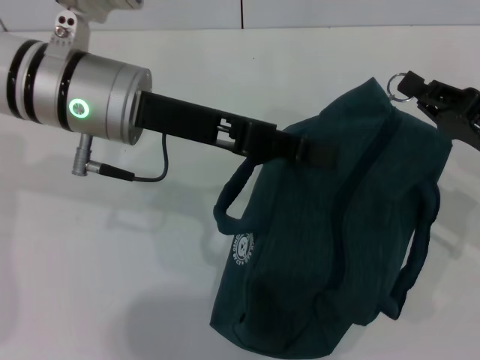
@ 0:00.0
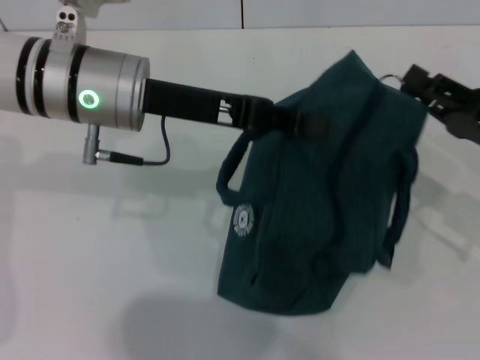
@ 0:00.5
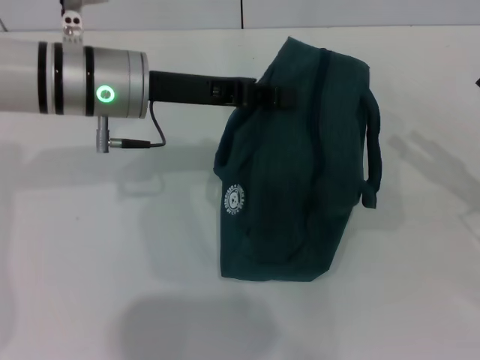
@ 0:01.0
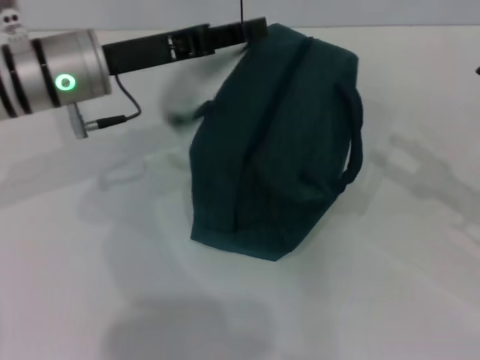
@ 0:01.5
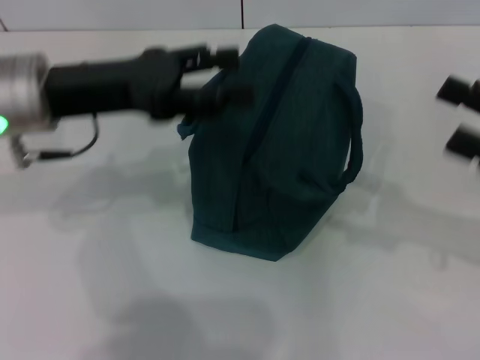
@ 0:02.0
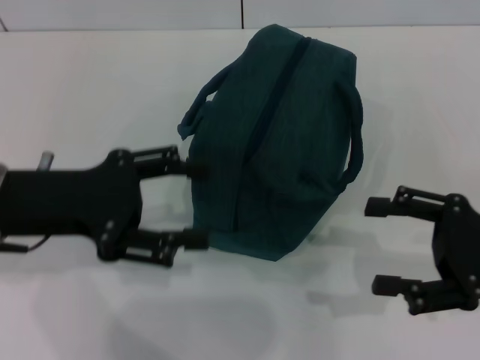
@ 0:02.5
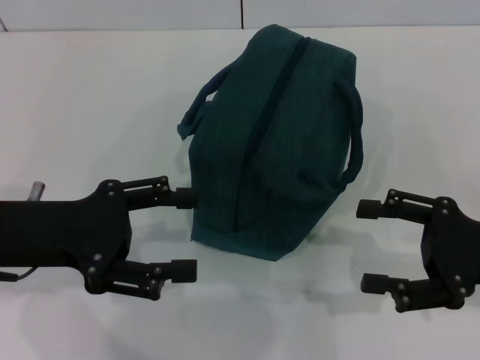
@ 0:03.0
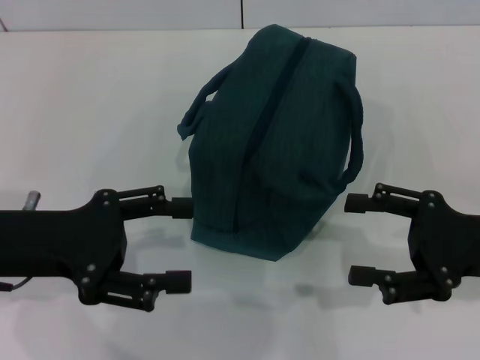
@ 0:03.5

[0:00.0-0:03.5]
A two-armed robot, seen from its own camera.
Step, 0:01.0 to 0:01.5: Hold the lunch bag with your left hand.
0:00.0 to 0:02.0: The right gripper goes about 5 cm upward, and opens its fingers. The left gripper is displaced to the left by approximately 5 cm, and opens up.
0:02.0 to 0:03.5: The right gripper changes place by about 5 cm; the left gripper heads backward, covering roughly 10 cm.

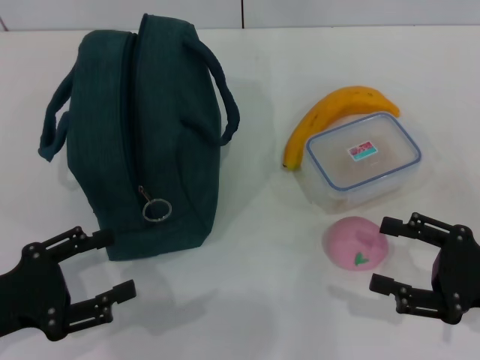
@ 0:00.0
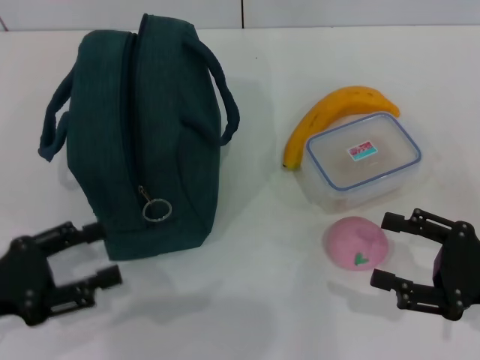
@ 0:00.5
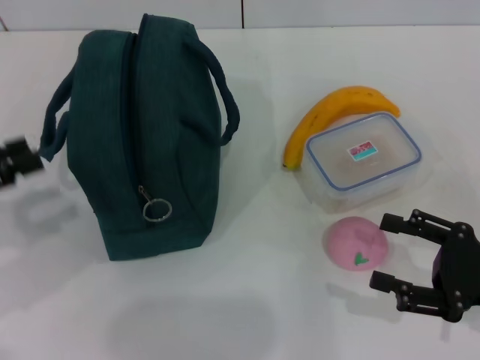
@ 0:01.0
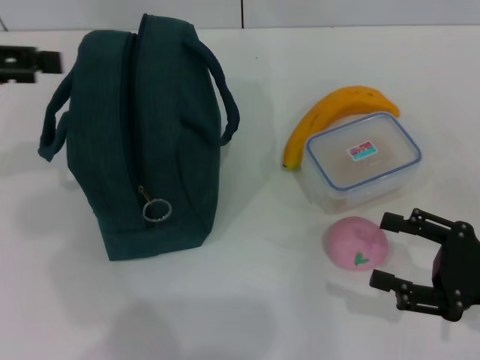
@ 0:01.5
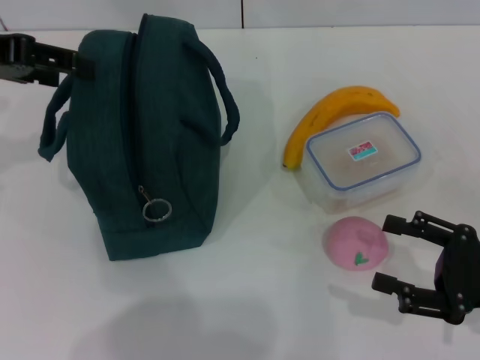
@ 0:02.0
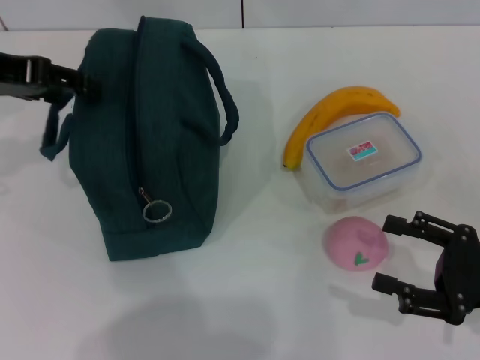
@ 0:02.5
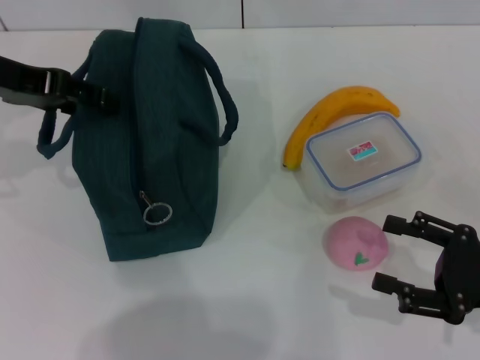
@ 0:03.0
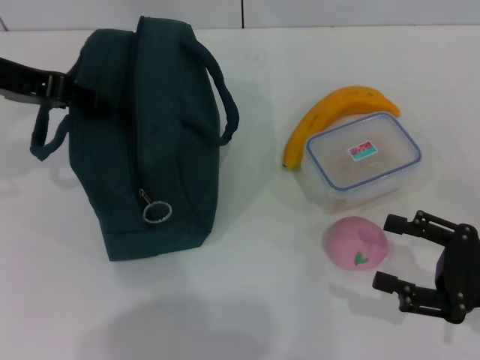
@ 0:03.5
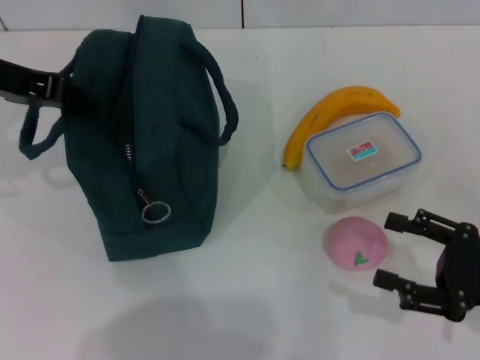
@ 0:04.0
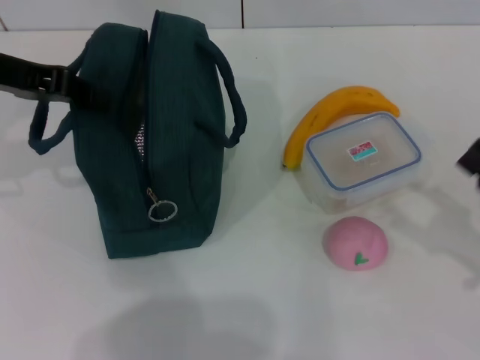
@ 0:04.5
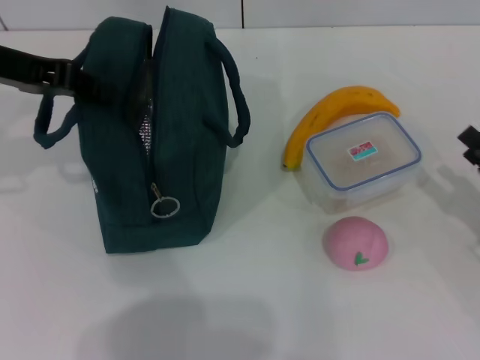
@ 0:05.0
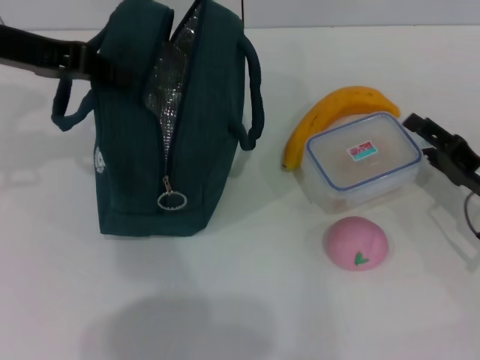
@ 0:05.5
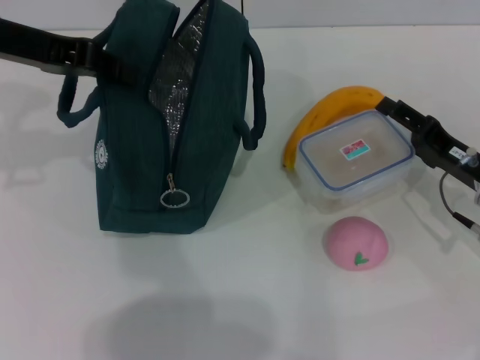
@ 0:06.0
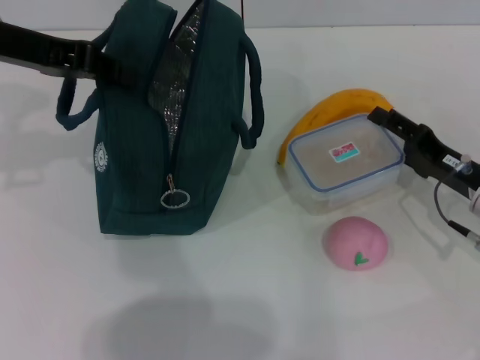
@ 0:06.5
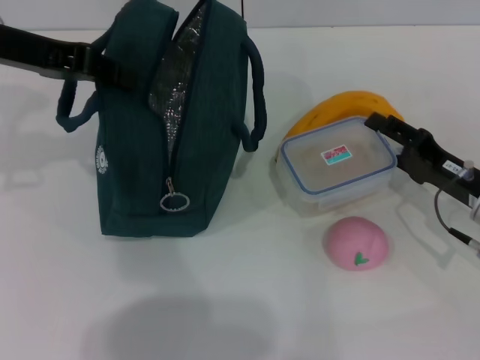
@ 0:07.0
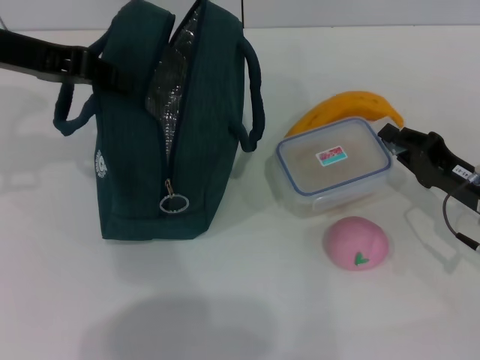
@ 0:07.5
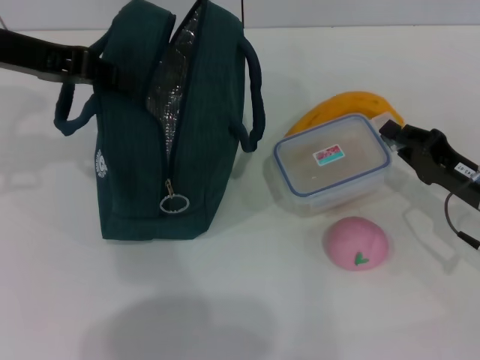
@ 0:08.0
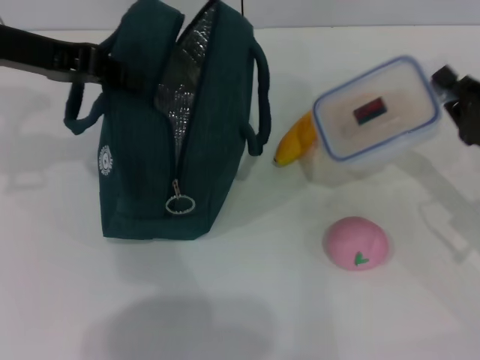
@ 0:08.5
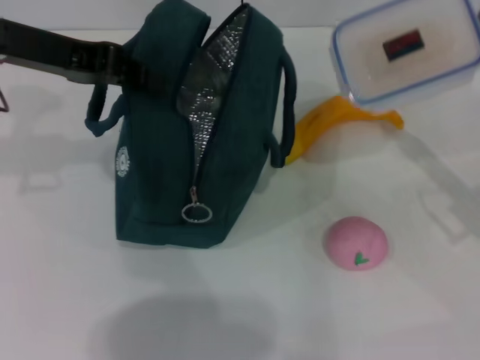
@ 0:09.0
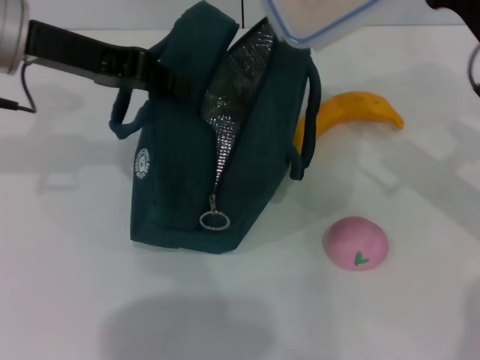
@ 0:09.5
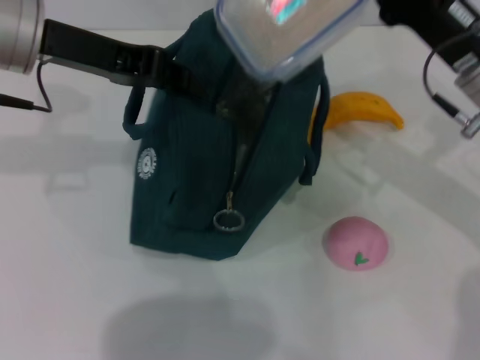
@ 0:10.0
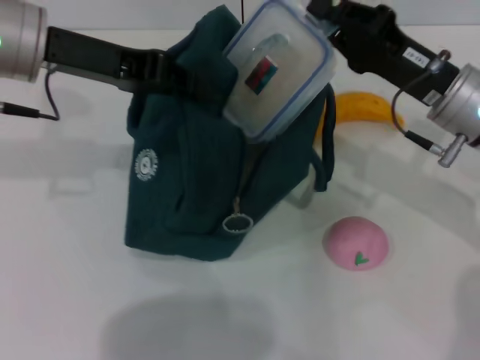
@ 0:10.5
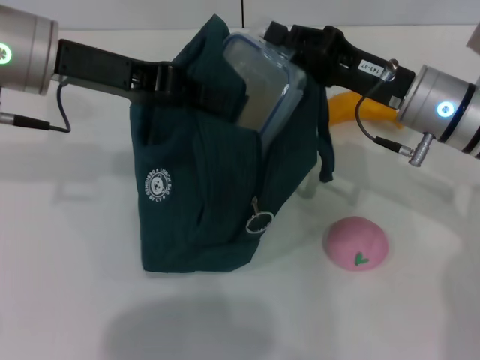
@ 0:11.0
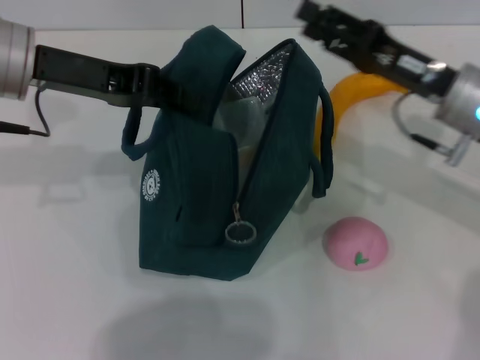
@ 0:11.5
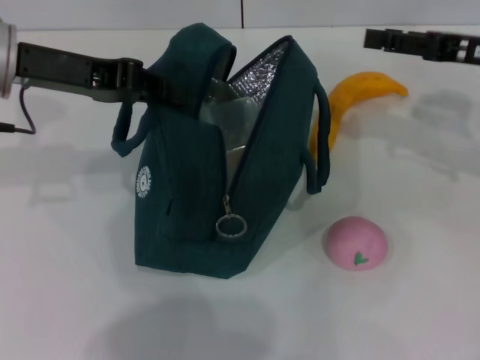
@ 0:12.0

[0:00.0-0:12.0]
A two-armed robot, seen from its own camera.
Step, 0:00.0 to 0:04.0: Hold the lunch bag with your left hand.
Step, 0:04.5 to 0:07.5: Pick up the lunch box with your right hand.
Step, 0:08.0 to 0:11.0: Place the lunch box into the lunch bag with your right hand.
0:00.0 to 0:02.0: The left gripper shifts approximately 25 cm upward and forward.
0:02.0 to 0:04.0: The left gripper closes up.
0:04.0 to 0:06.0: The right gripper goes about 10 cm forward.
0:06.0 to 0:08.0: The right gripper closes its fingers.
0:08.0 to 0:10.0: The right gripper is displaced upward, forward and to the left by roughly 15 cm, while the left gripper travels to the right by some 5 cm.
0:10.0 to 0:12.0: The right gripper is displaced to the right by approximately 5 cm, and opens its fingers.

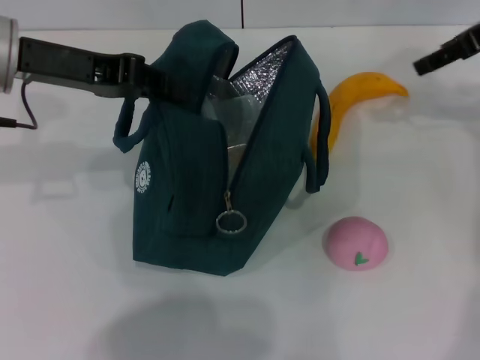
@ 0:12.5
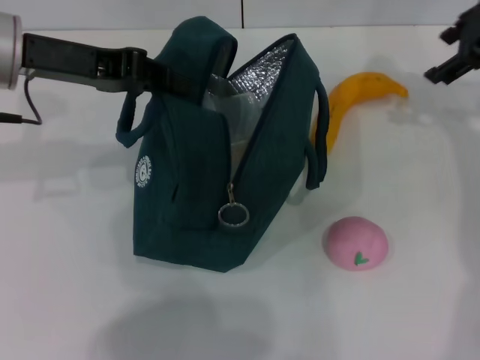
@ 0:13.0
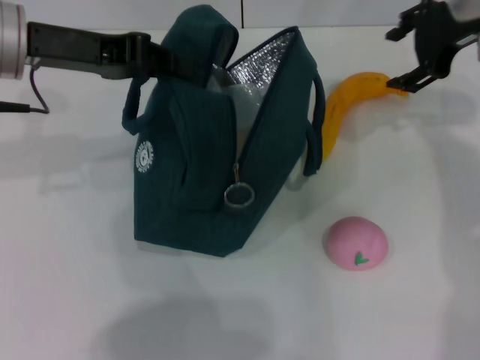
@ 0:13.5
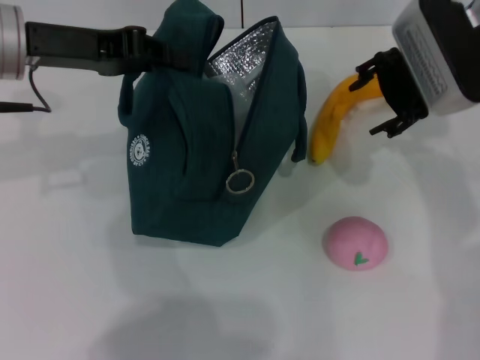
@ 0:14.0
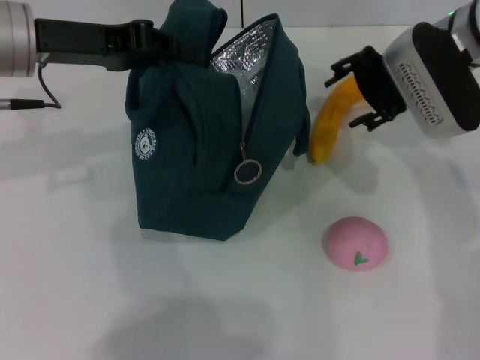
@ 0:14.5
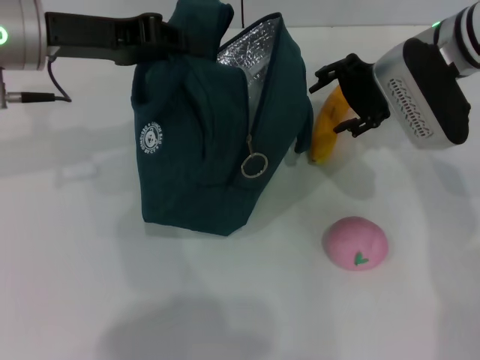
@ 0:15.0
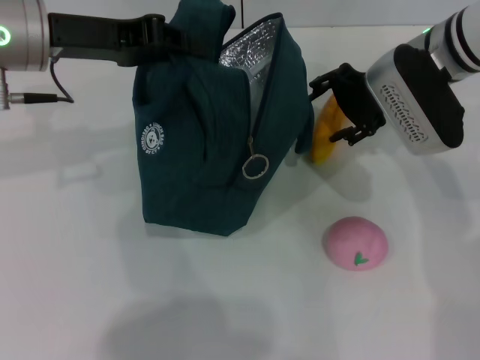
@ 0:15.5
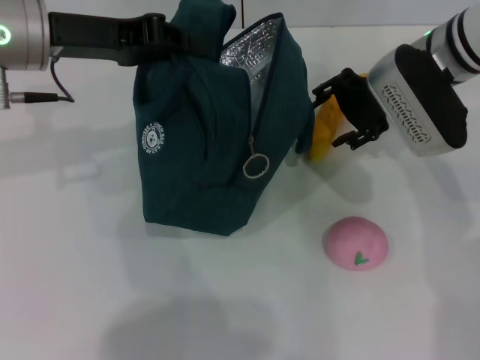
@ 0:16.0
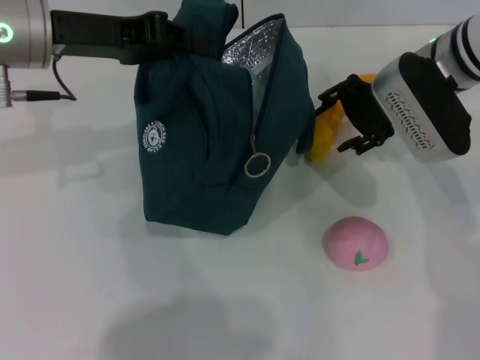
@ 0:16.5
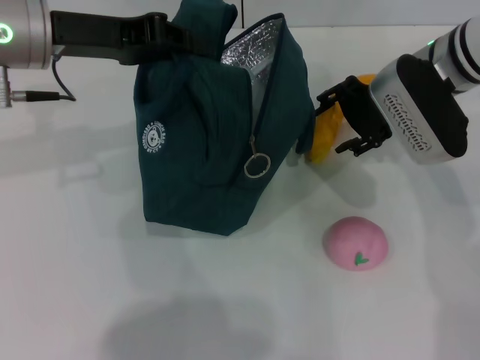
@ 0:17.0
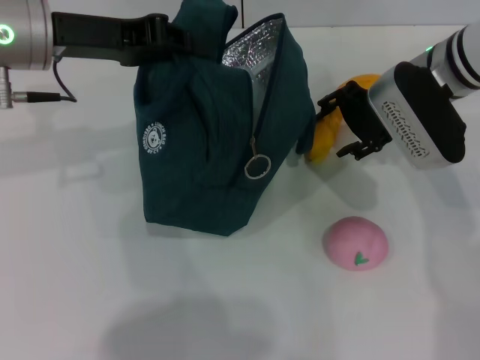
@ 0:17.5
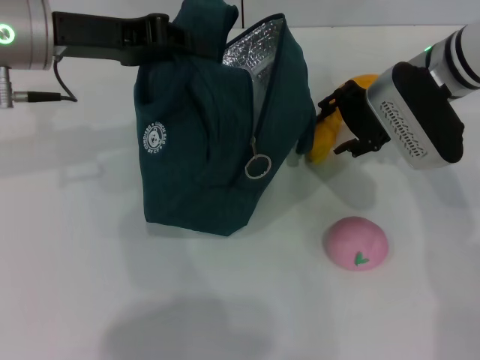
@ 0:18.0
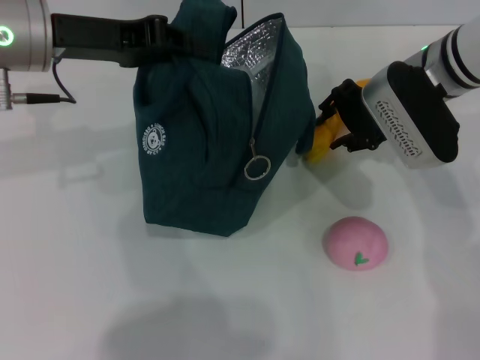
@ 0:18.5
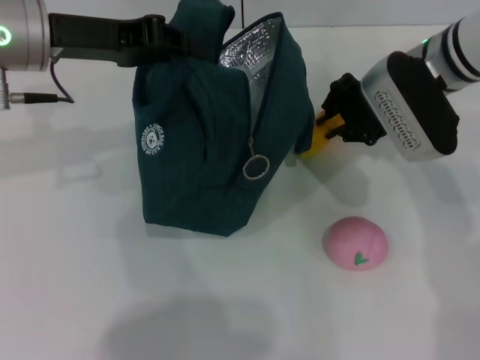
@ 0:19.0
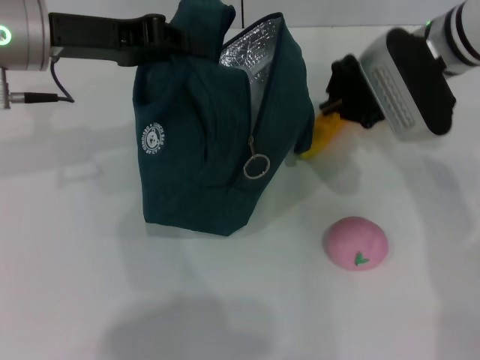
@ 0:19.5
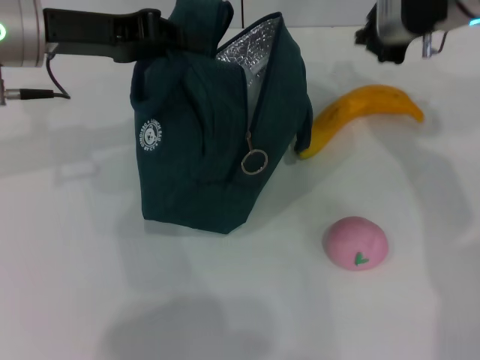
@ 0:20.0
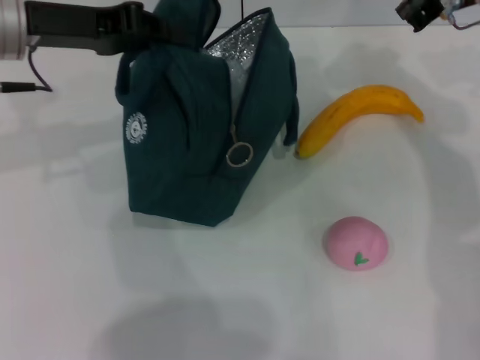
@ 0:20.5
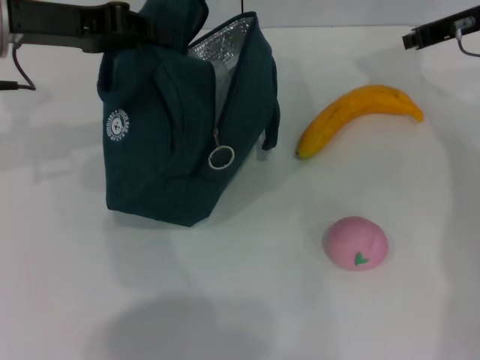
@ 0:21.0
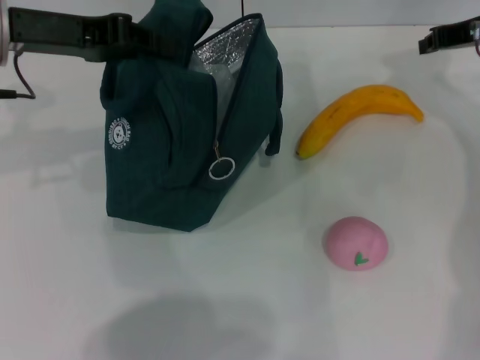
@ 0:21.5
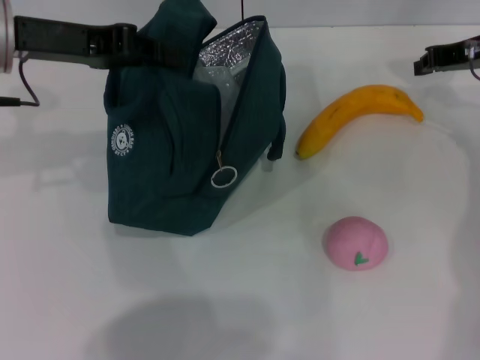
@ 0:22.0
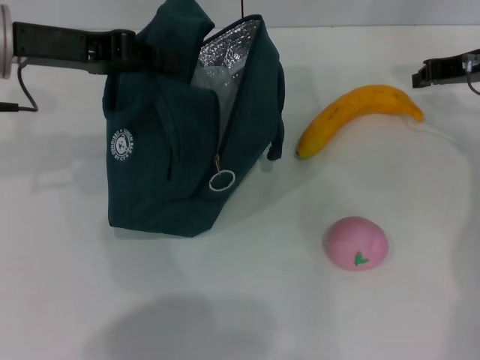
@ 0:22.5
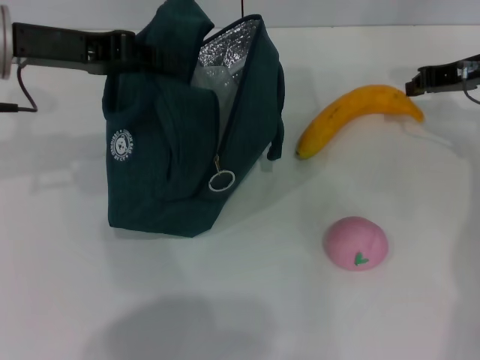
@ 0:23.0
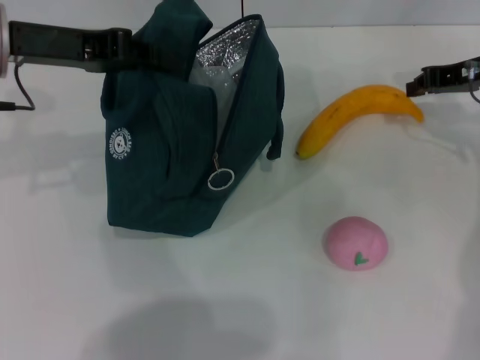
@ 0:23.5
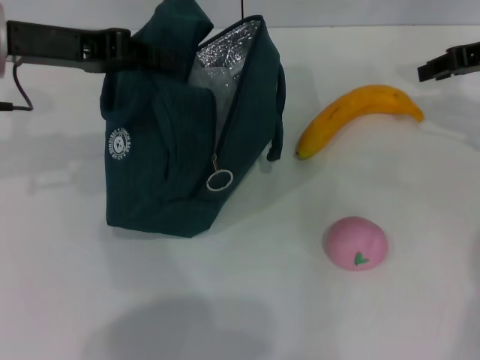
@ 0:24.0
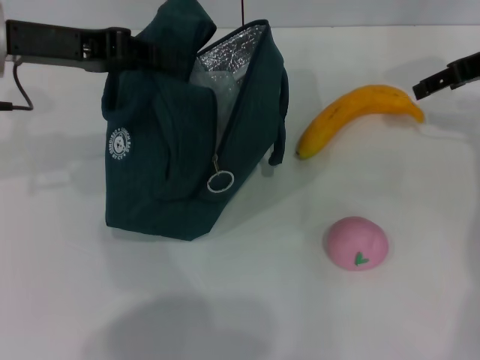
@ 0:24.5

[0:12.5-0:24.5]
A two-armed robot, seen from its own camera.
0:12.5 to 0:14.5: The right gripper goes approximately 10 cm to the left and downward.
0:14.5 to 0:16.5: The grippers stay close to where they were, moving slightly.
0:16.5 to 0:18.5: Both grippers stay about where they are.
0:18.5 to 0:20.5: The right gripper heads upward and to the right, covering approximately 10 cm, and closes up.
0:20.5 to 0:22.5: The right gripper travels downward by approximately 5 cm.
0:22.5 to 0:24.5: The right gripper opens.
